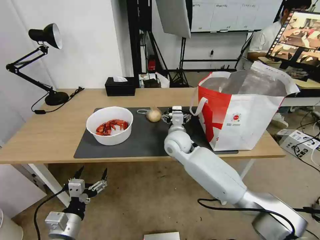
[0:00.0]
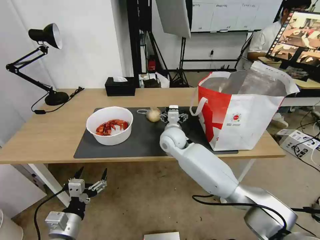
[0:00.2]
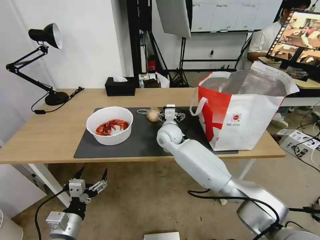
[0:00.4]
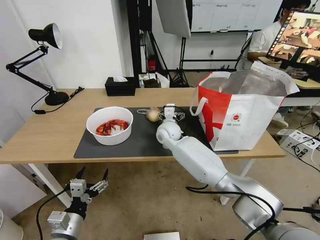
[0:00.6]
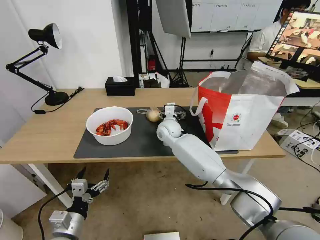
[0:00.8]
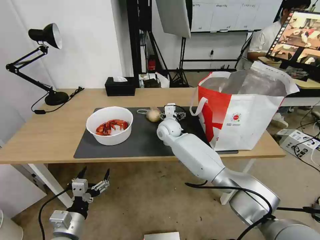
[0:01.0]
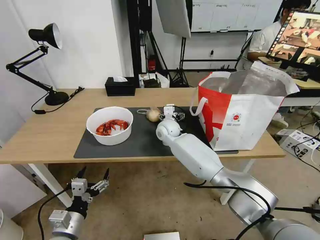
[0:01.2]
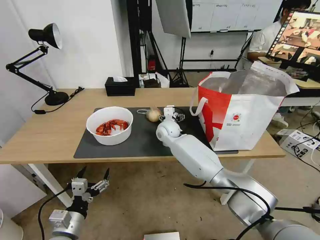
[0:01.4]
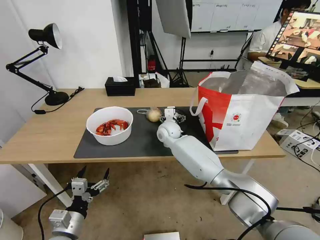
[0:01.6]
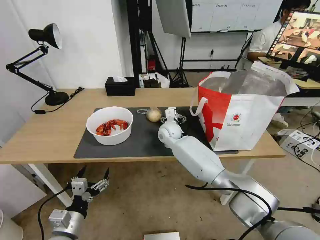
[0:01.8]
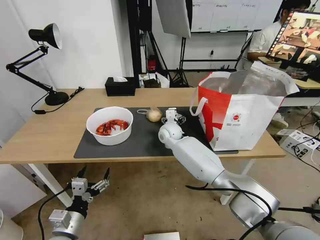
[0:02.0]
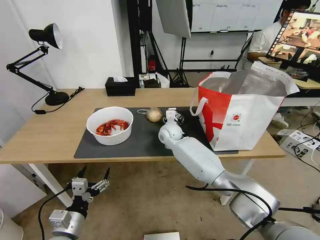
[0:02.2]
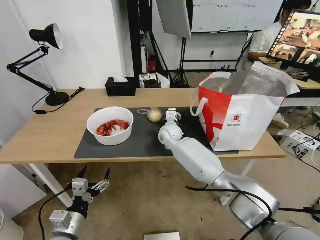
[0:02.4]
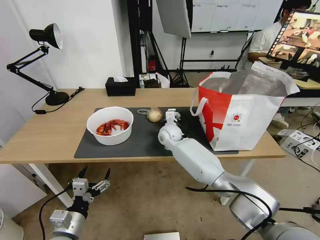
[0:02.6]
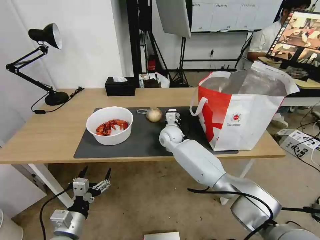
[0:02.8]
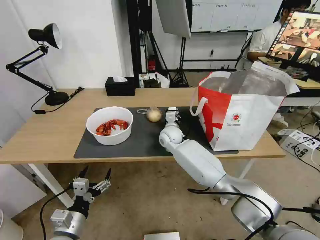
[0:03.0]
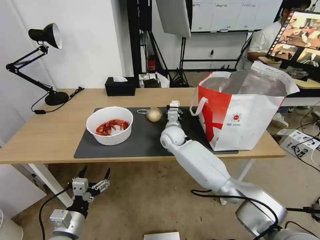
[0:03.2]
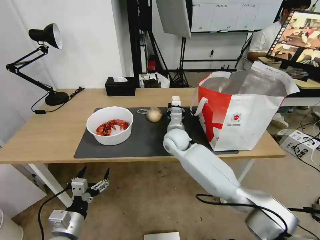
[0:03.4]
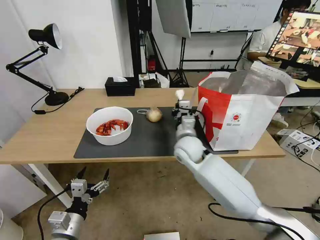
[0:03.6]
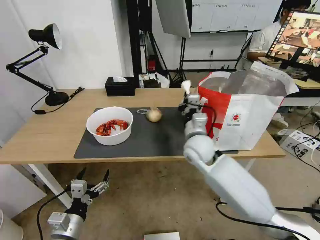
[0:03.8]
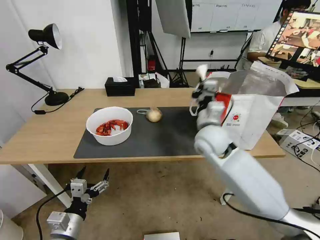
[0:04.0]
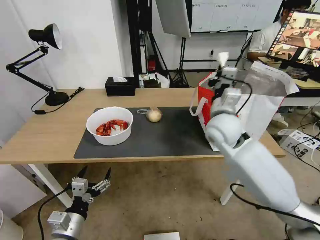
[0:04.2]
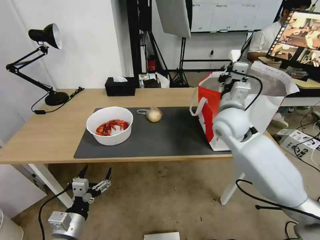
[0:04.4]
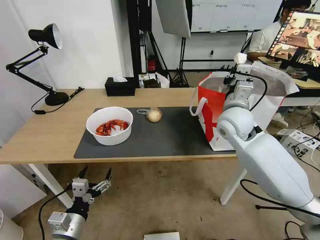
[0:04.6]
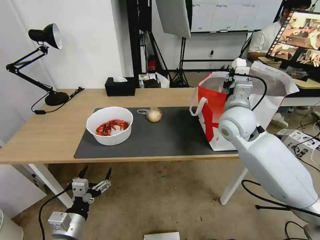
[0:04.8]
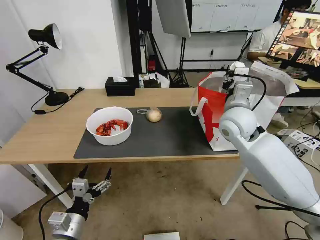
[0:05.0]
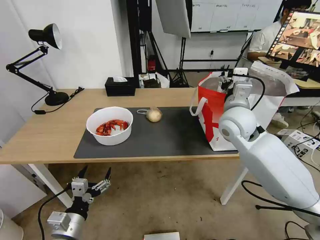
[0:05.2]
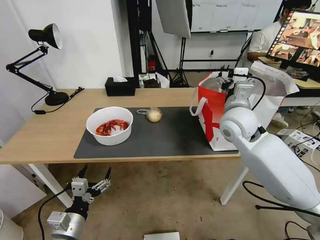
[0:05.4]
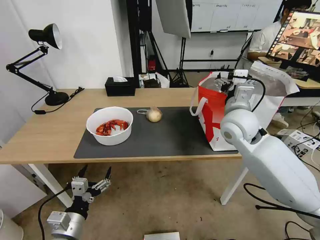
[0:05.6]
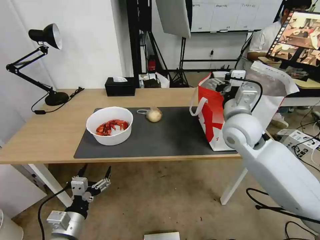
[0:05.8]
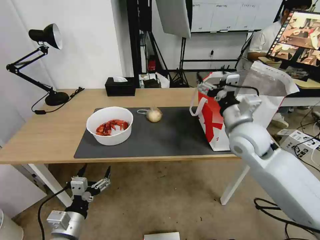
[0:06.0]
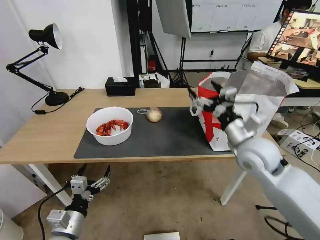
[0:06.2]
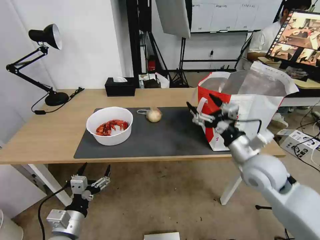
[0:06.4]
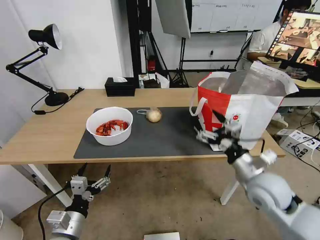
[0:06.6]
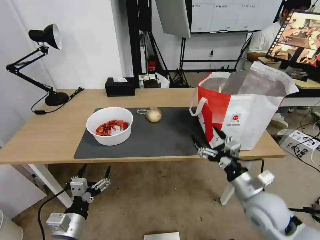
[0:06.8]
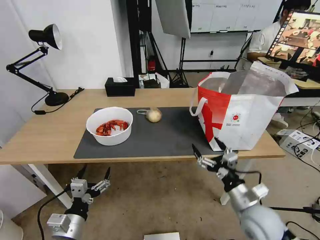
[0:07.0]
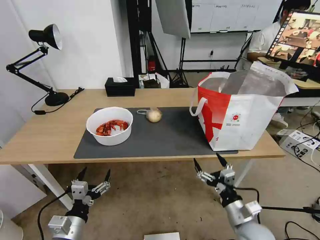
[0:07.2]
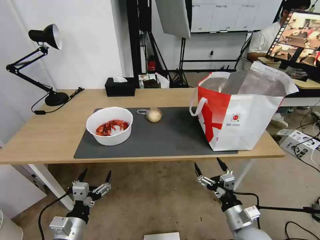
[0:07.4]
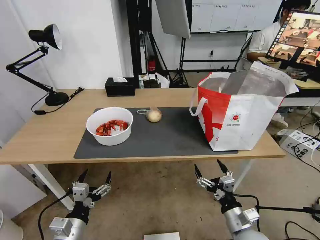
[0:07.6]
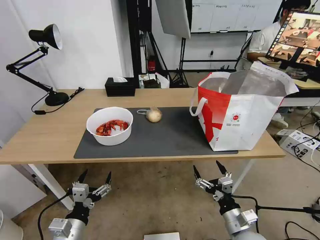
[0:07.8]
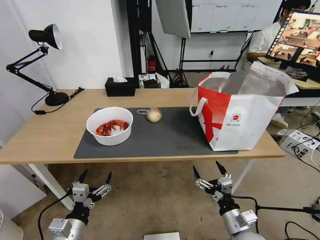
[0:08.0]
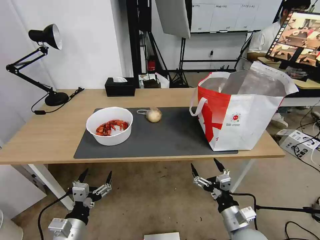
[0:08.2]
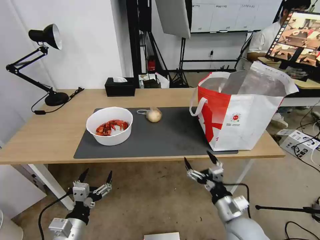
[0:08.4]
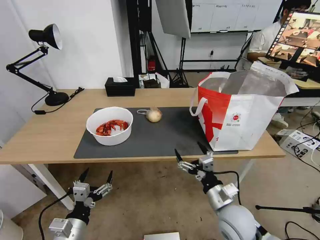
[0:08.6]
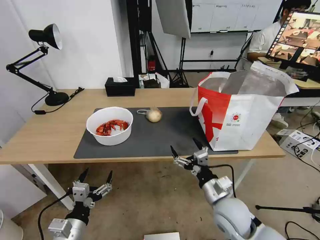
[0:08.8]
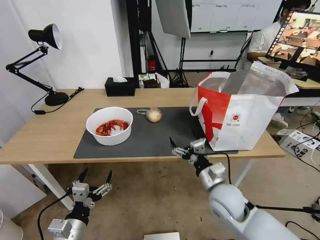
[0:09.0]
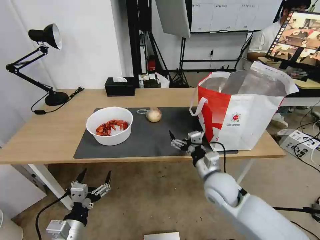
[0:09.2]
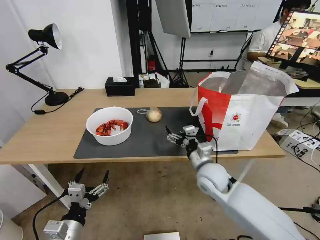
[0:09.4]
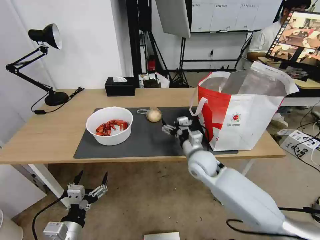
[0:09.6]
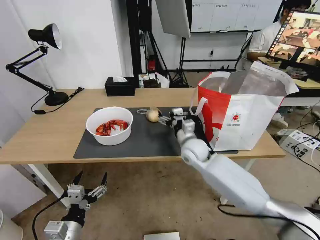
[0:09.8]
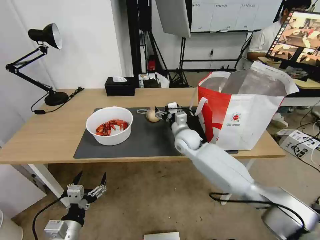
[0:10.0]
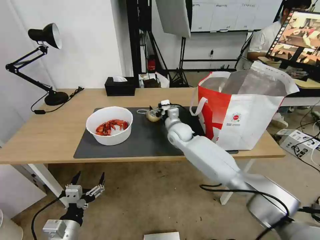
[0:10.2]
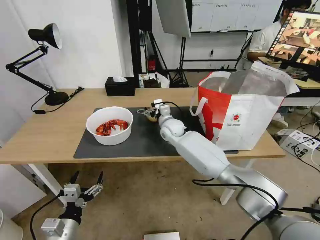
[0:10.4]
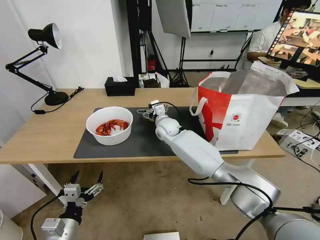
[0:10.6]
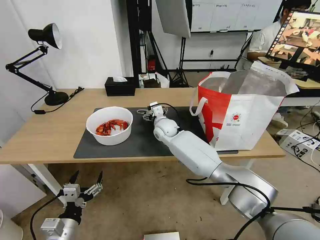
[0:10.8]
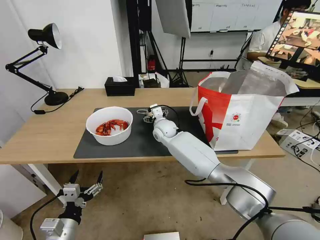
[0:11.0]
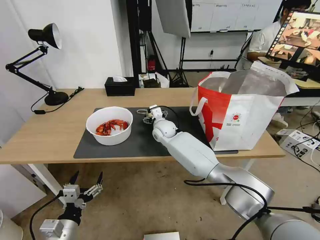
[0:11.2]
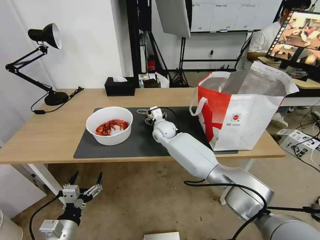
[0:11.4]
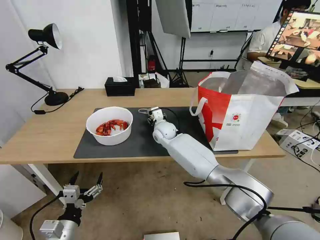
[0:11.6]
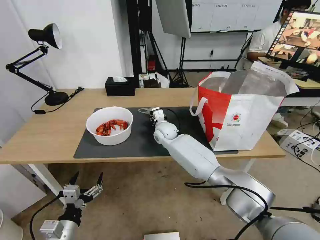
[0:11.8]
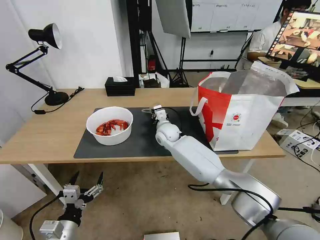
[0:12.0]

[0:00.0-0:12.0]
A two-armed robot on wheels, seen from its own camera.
Task of the whole recording: Pick up the trash from the table and place it into the takeout bag.
0:00.0 to 0:01.6: The right gripper is displaced forward by about 10 cm.
0:01.6 to 0:03.0: The right gripper closes its fingers.
0:03.0 to 0:04.4: The right gripper shifts roughly 25 cm upward, to the right and backward.
0:04.4 to 0:06.0: The right gripper heads backward, covering roughly 5 cm, and opens up.
0:06.0 to 0:07.6: The right gripper moves downward and backward, approximately 30 cm.
0:07.6 to 0:09.0: The right gripper travels forward, upward and to the left by about 15 cm.
0:09.0 to 0:10.4: The right gripper heads forward and to the left, covering approximately 30 cm.
0:10.4 to 0:12.0: The right gripper closes its fingers.

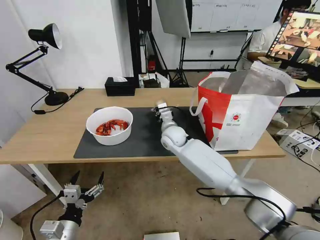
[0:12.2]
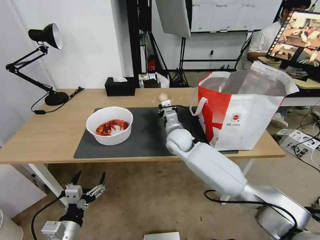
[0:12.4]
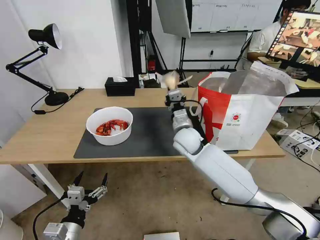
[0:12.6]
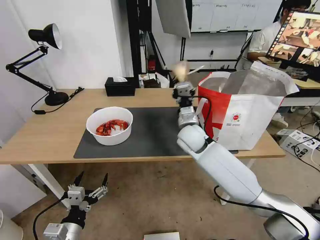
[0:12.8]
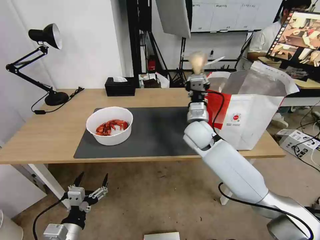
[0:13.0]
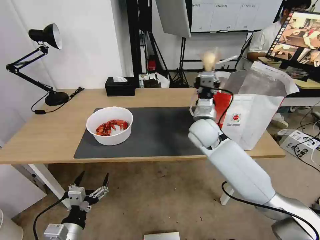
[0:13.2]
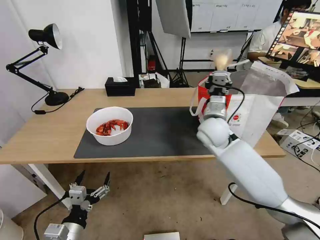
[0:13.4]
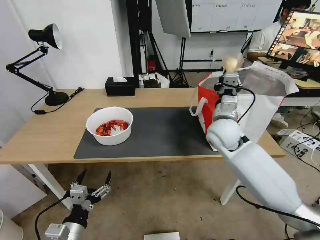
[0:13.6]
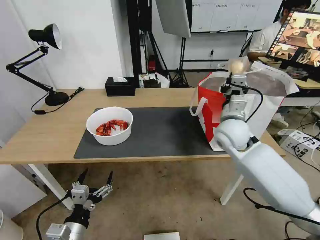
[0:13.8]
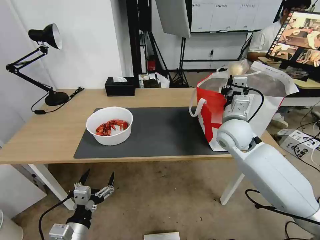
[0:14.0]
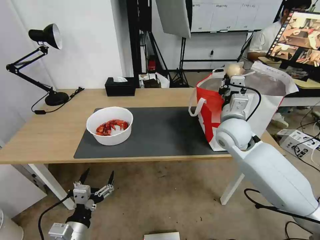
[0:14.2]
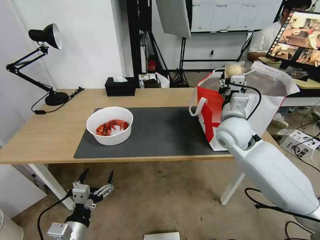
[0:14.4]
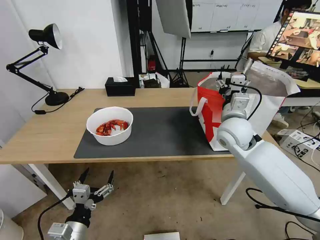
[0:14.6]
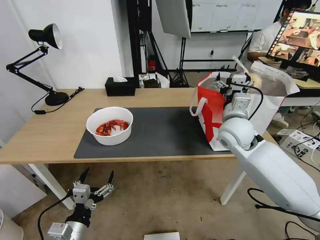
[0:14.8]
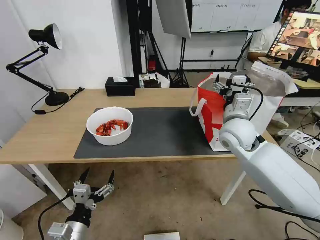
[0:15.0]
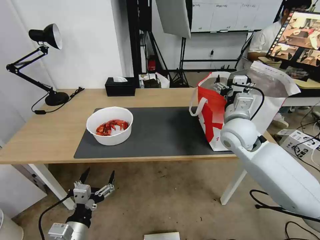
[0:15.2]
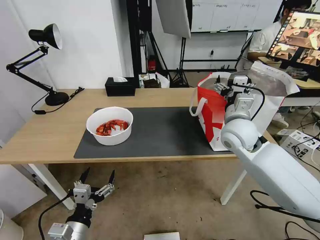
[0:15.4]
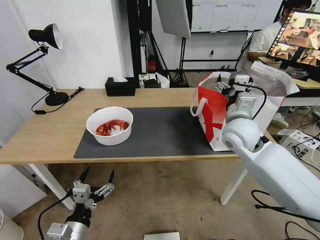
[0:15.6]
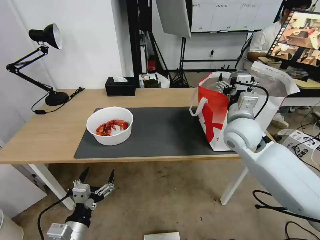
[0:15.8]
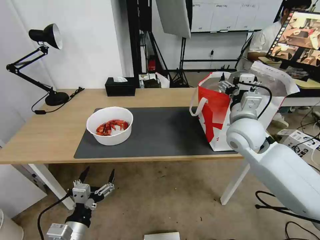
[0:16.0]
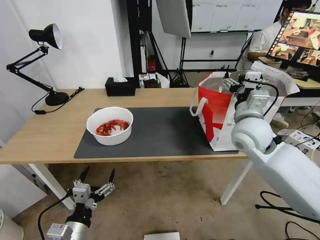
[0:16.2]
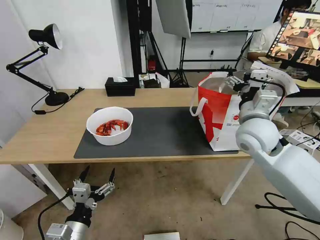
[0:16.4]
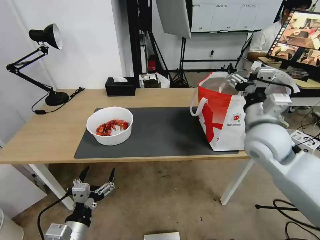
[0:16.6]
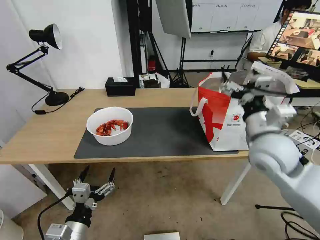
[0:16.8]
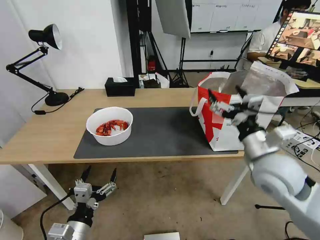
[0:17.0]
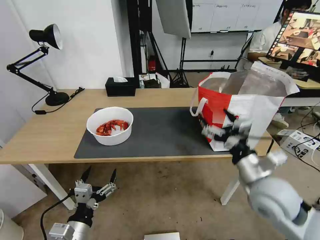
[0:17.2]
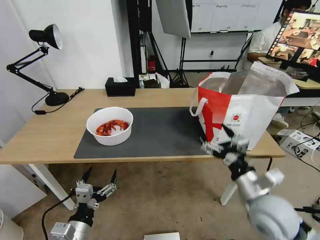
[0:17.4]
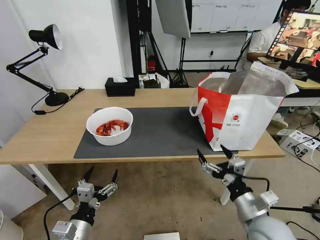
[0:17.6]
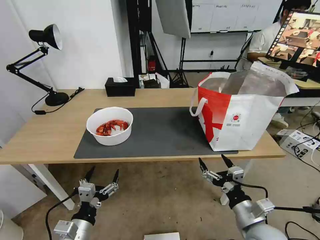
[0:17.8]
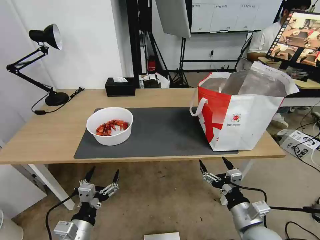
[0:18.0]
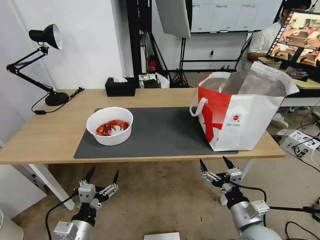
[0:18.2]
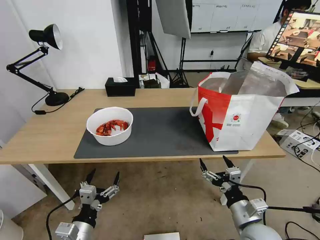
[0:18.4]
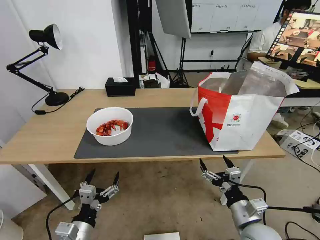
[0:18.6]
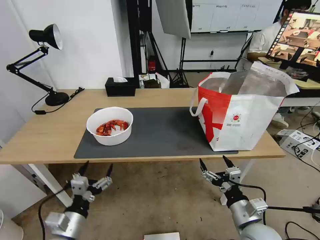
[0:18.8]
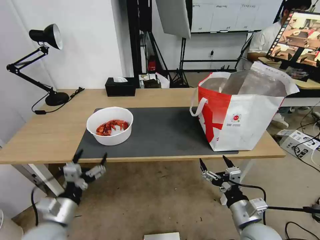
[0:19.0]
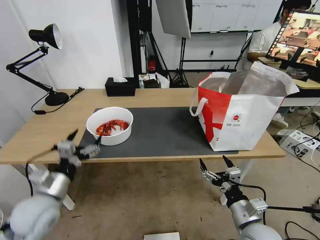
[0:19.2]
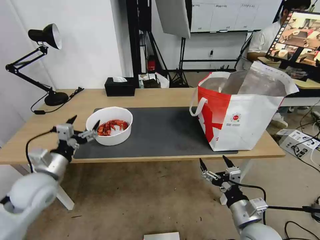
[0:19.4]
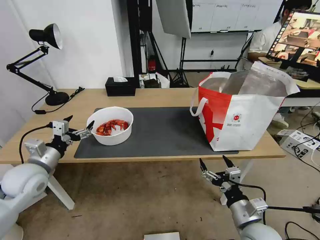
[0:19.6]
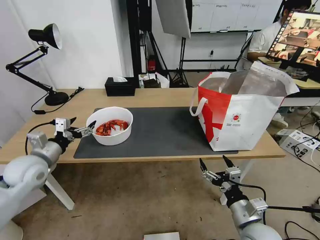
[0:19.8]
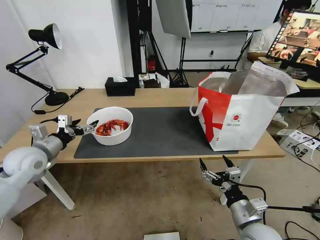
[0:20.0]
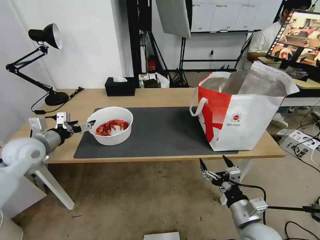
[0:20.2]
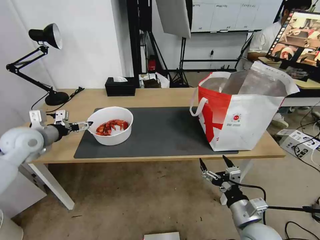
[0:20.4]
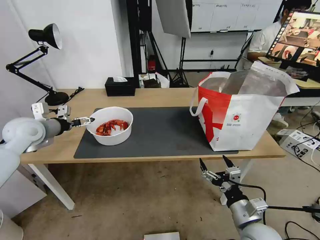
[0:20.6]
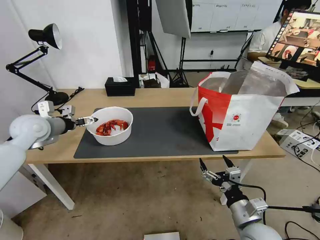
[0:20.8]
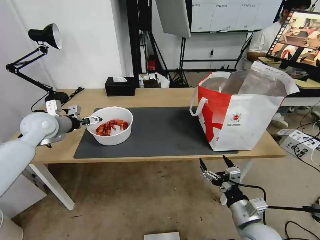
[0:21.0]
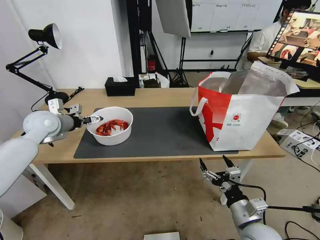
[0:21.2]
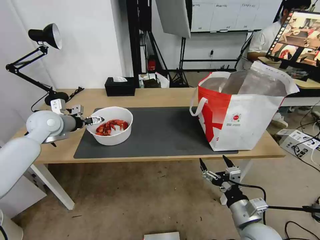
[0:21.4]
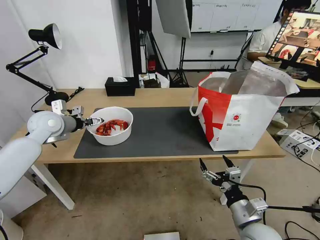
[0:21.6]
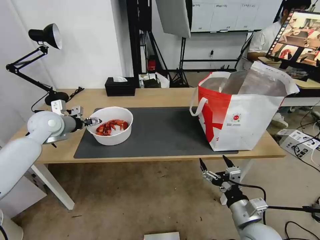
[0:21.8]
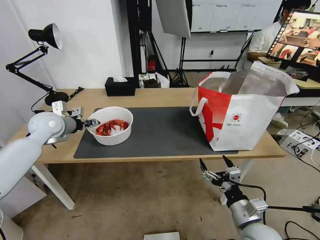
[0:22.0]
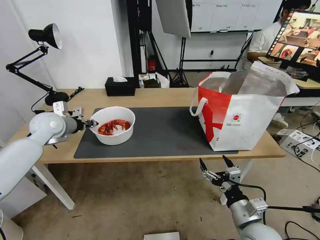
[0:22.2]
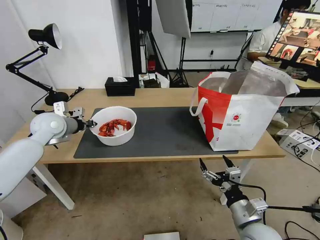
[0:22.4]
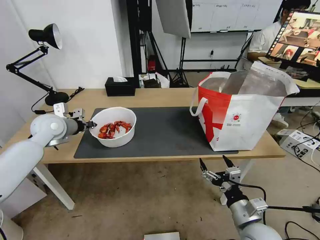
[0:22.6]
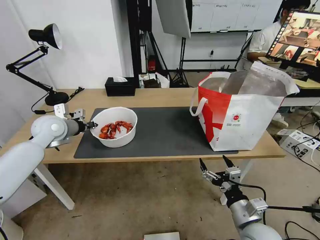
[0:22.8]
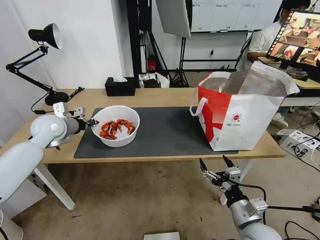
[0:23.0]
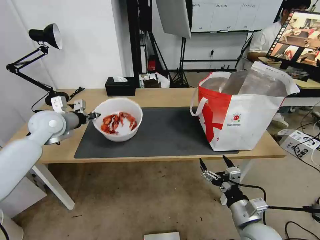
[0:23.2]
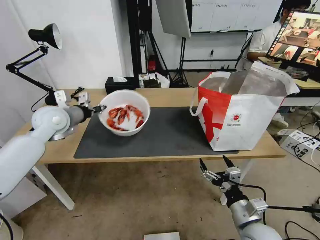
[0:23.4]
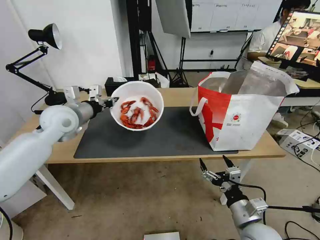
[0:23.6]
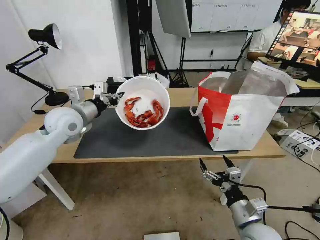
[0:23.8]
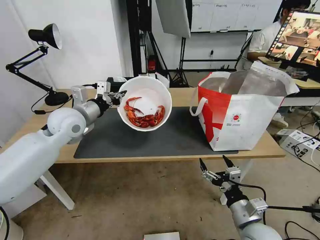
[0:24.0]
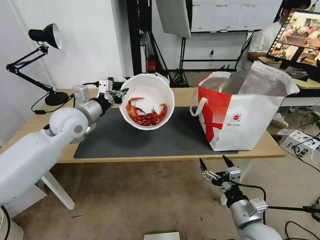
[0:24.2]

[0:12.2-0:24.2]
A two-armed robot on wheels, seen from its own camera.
Task of the whole recording: Pick up the trash from the table and place it into the takeout bag.
0:12.2 to 0:13.8: The right gripper goes about 20 cm to the right, upward and backward.
0:13.8 to 0:15.2: The right gripper opens up.
0:15.2 to 0:16.6: The right gripper goes some 5 cm backward.
0:16.6 to 0:18.2: The right gripper moves downward and backward, approximately 30 cm.
0:18.2 to 0:19.8: The left gripper travels forward, to the left and upward by about 30 cm.
0:19.8 to 0:21.2: The left gripper heads forward and upward, covering roughly 15 cm.
0:21.2 to 0:22.6: The left gripper closes.
0:22.6 to 0:24.2: The left gripper shifts roughly 10 cm to the right.
